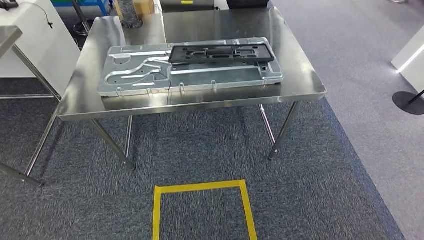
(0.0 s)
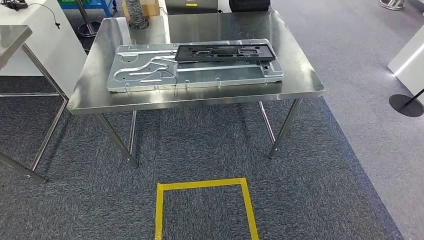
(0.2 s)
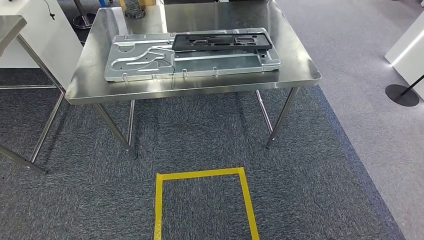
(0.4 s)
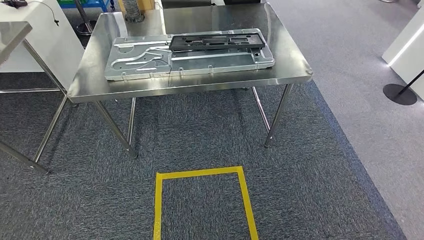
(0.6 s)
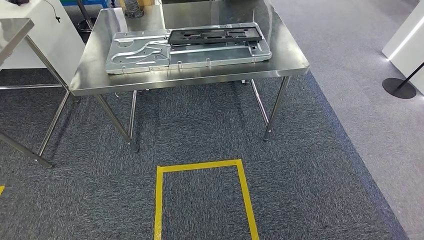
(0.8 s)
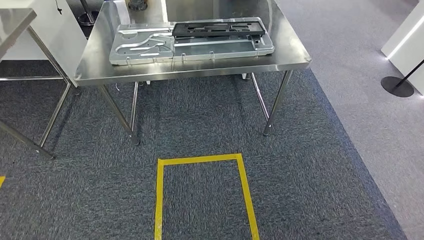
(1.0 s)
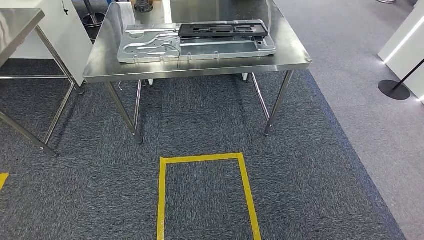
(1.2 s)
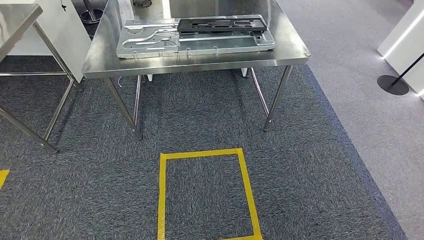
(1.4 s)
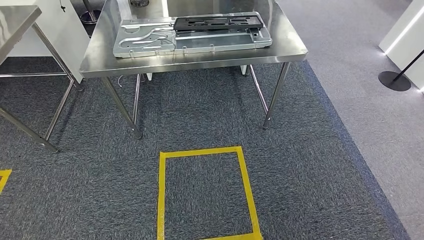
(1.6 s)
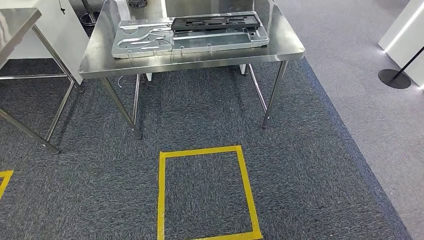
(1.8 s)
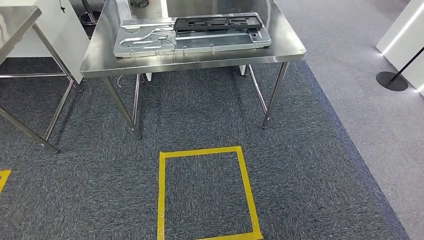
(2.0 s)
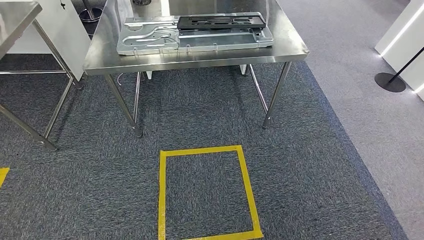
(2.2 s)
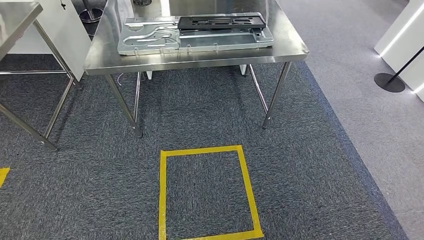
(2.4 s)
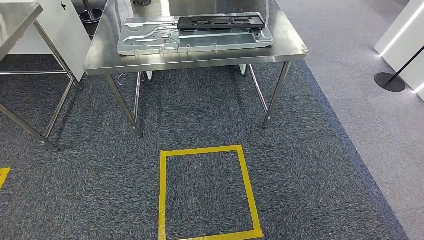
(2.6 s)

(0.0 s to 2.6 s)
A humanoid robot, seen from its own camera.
Step, 0.0 s - 2.6 s: Move to the initial position of the shelf.

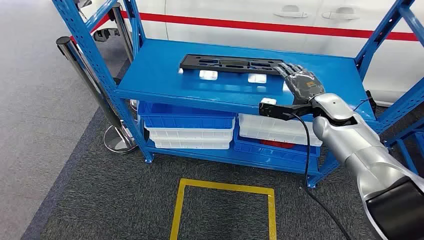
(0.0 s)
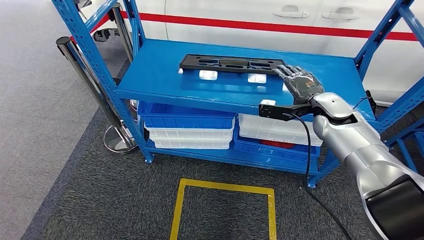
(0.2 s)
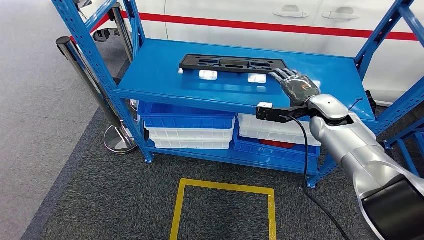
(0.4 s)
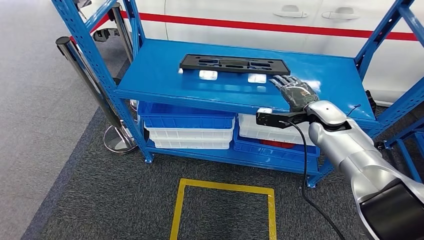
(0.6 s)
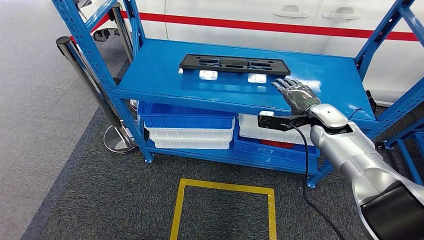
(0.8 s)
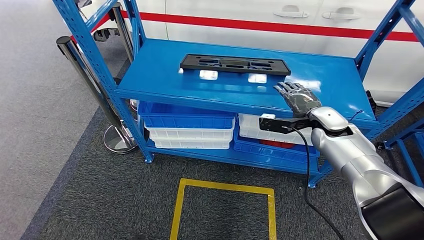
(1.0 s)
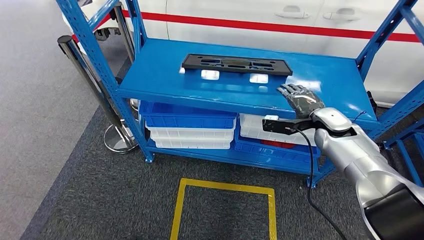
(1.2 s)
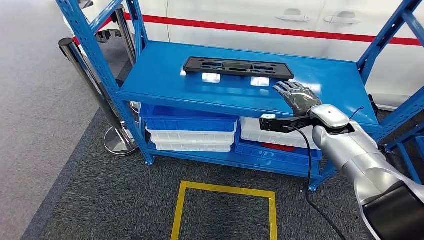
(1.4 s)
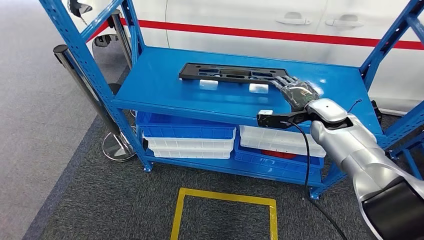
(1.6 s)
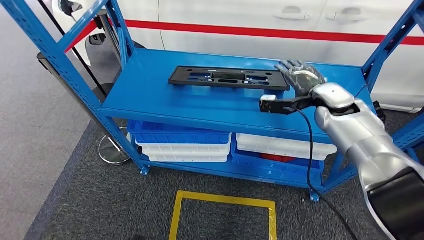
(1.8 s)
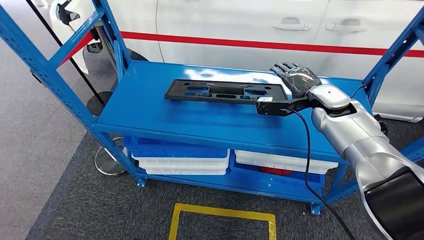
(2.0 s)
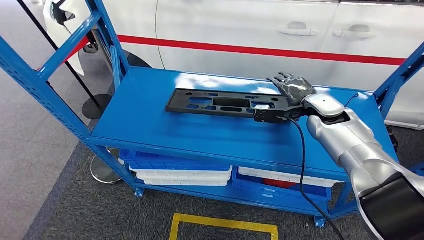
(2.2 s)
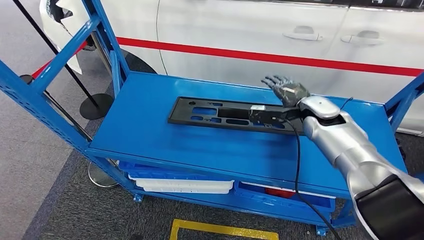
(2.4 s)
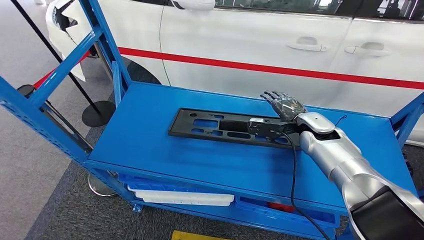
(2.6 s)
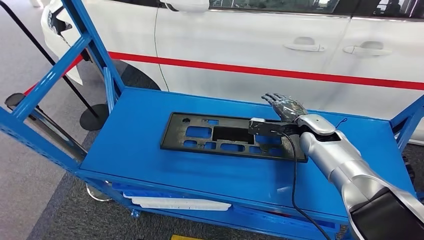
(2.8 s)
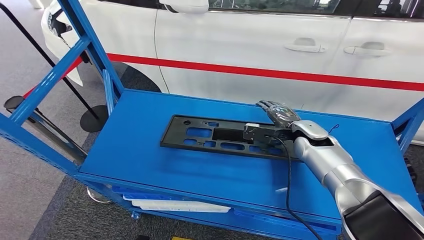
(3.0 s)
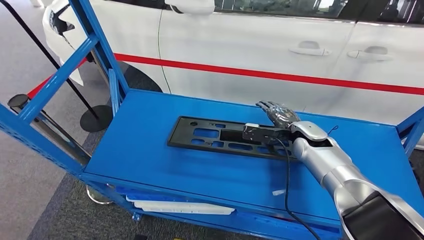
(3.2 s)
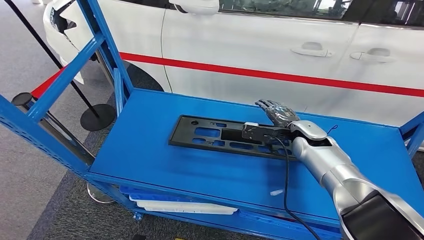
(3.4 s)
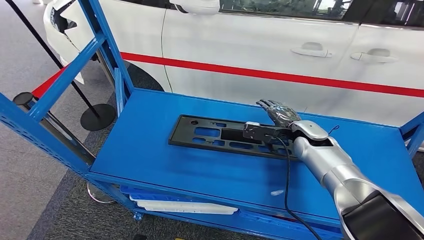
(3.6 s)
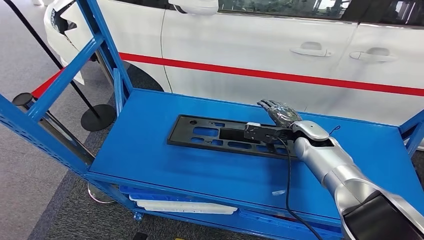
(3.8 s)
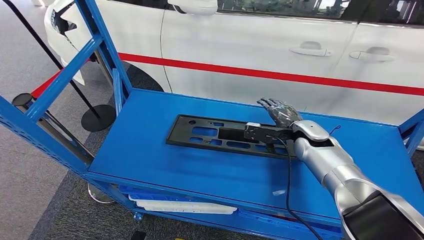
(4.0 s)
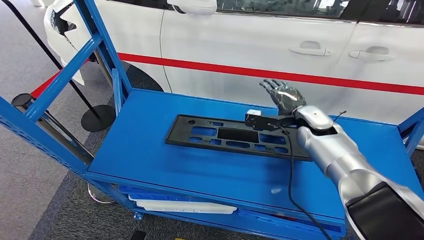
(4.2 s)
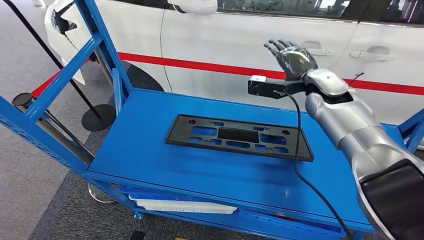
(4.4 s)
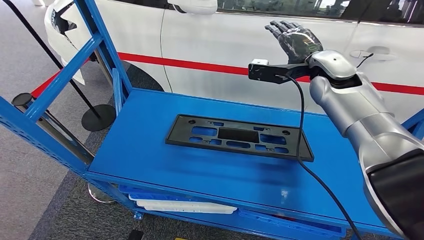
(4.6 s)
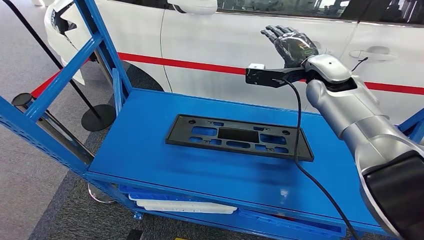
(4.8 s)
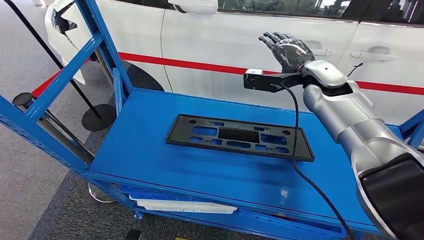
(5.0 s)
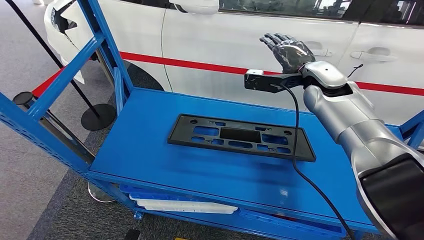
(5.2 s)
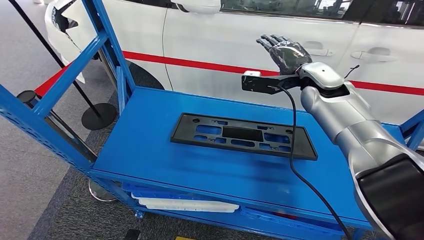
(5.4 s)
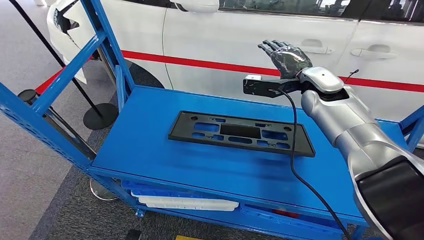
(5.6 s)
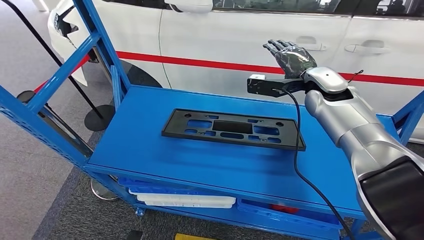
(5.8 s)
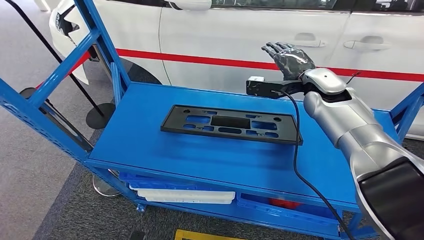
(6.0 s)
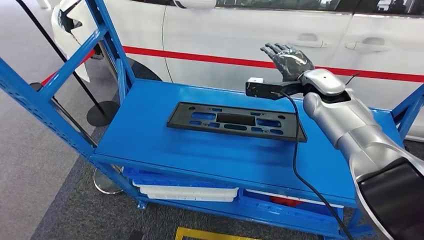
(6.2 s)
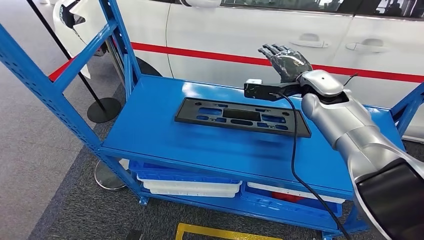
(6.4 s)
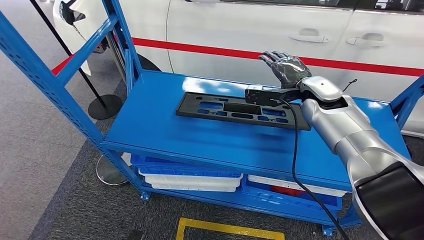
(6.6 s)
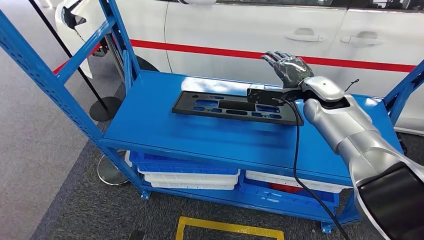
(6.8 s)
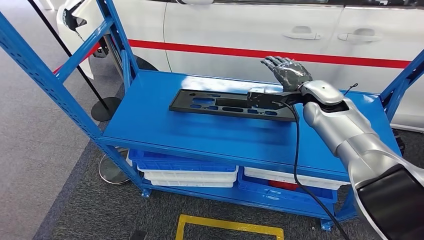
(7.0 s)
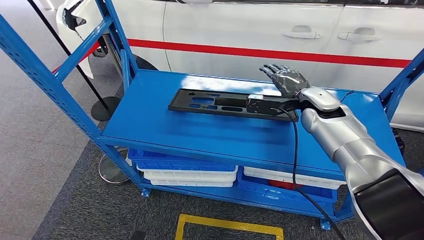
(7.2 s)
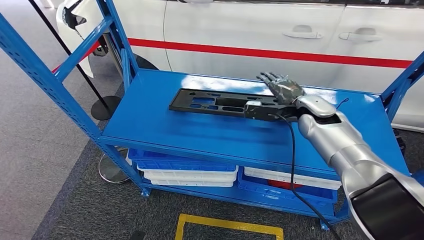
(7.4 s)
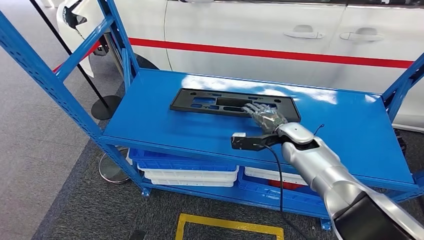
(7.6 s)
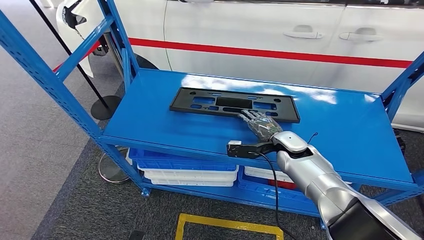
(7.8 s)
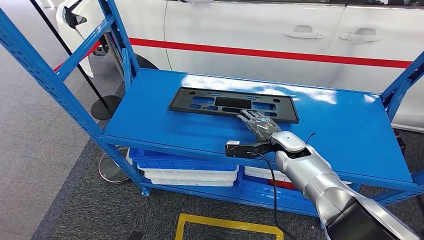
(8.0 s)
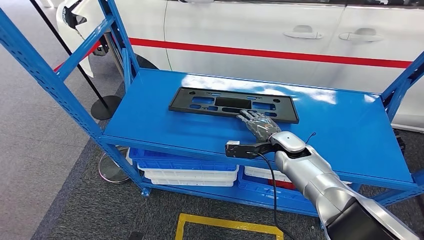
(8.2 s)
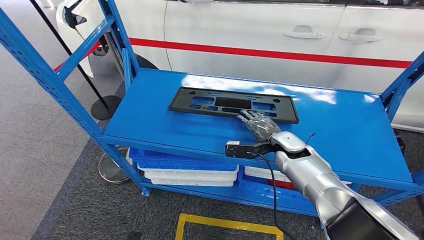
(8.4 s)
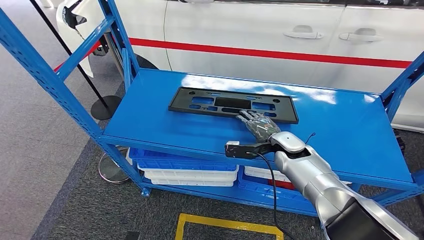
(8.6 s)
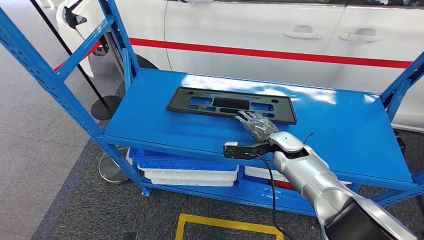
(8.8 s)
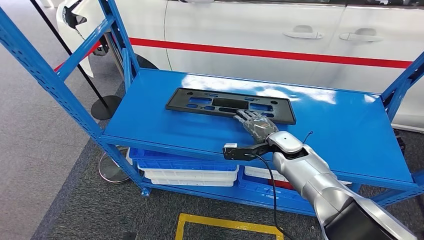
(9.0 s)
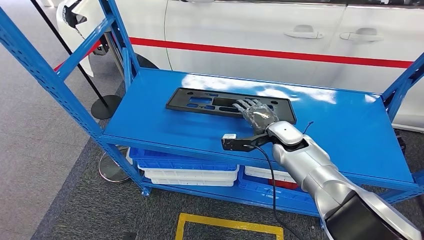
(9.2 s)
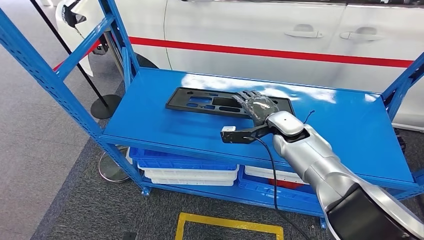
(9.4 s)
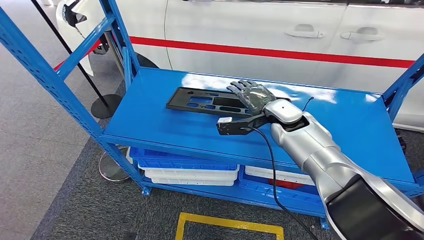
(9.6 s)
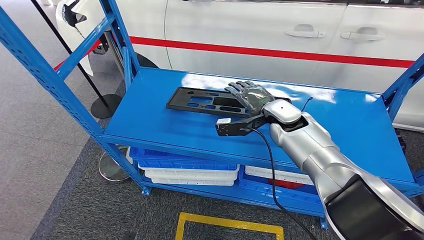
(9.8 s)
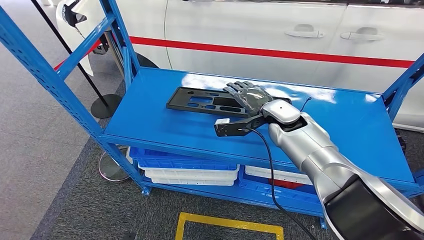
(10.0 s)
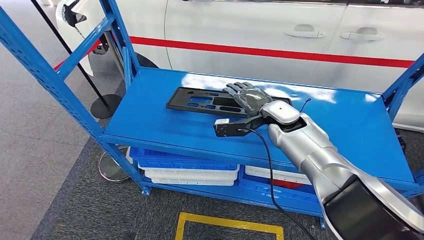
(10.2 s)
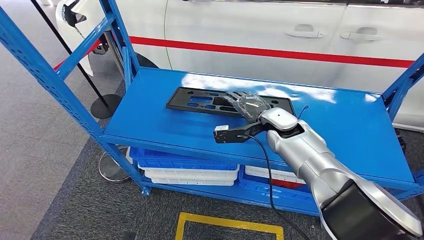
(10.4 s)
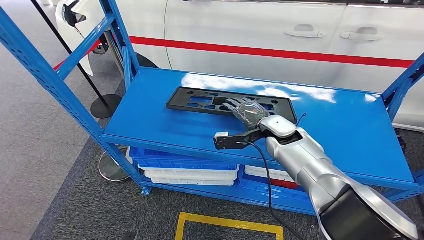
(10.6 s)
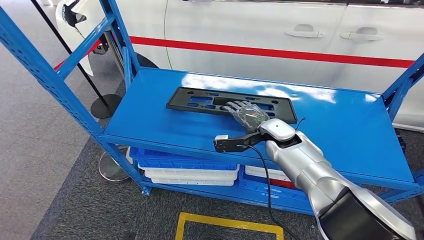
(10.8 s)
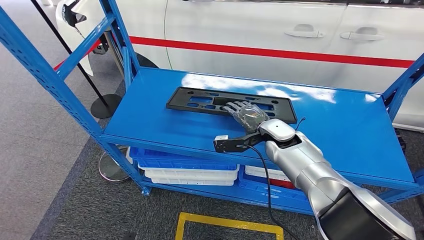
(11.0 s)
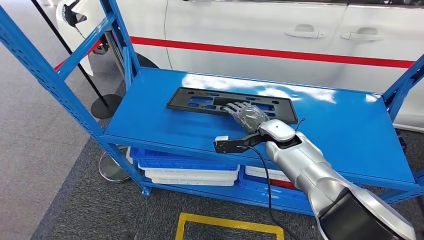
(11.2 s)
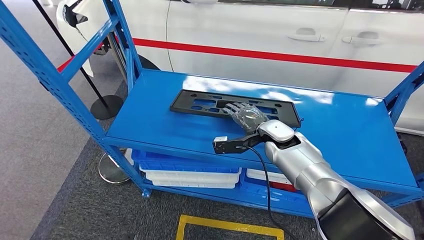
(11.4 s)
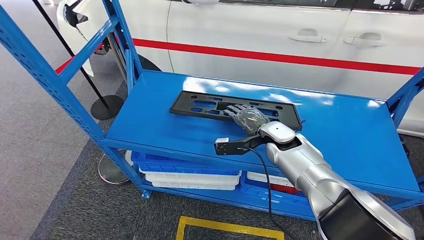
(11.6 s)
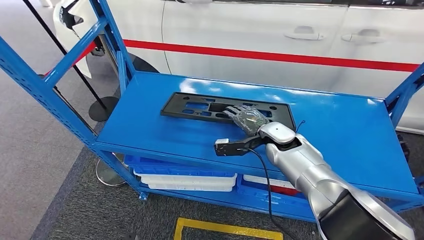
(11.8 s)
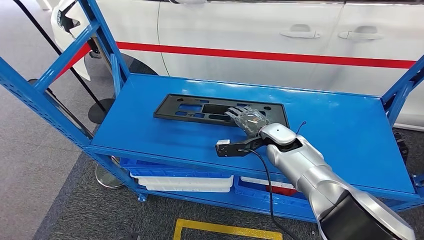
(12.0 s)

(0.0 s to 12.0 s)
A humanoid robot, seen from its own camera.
7.6 s - 9.0 s: The hands make only small movements.
9.0 s - 10.4 s: The right hand shifts roughly 5 cm upward.

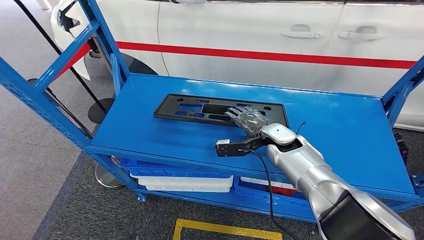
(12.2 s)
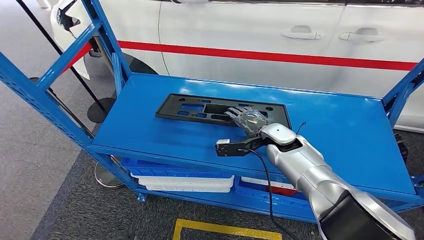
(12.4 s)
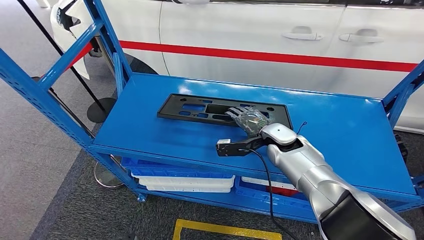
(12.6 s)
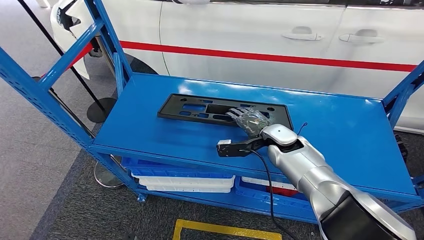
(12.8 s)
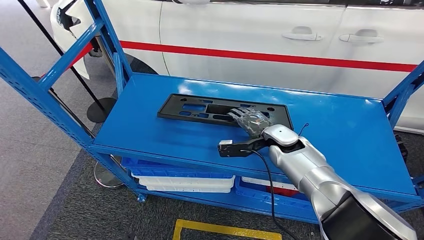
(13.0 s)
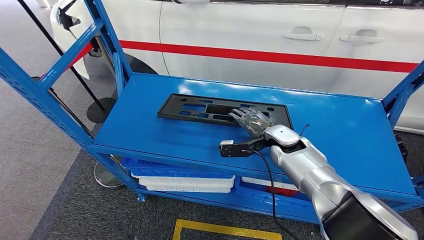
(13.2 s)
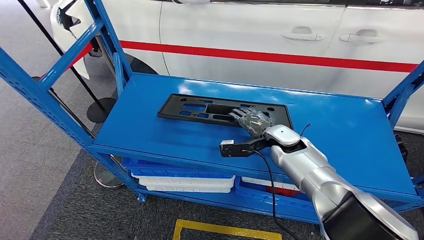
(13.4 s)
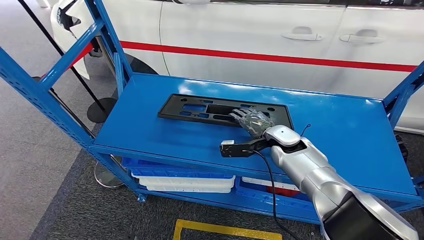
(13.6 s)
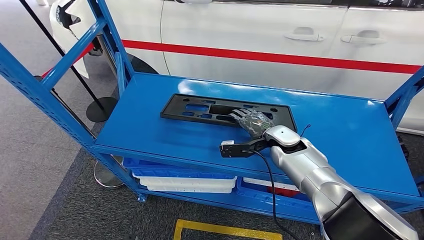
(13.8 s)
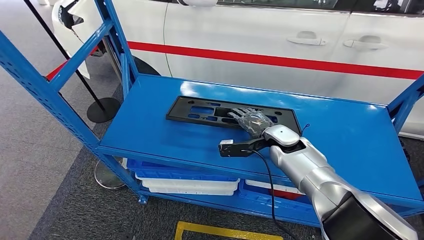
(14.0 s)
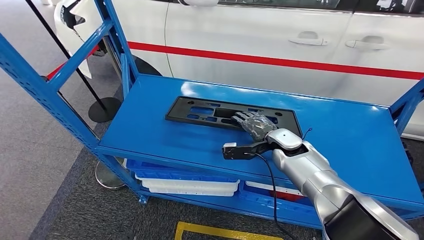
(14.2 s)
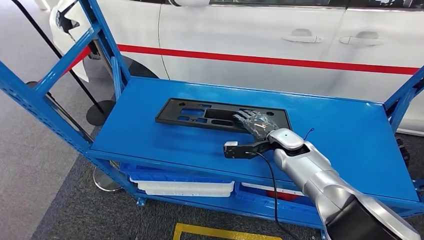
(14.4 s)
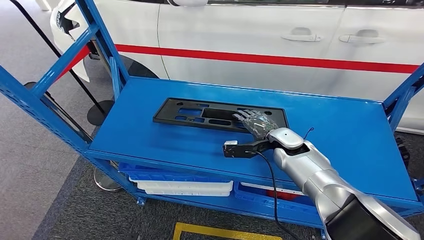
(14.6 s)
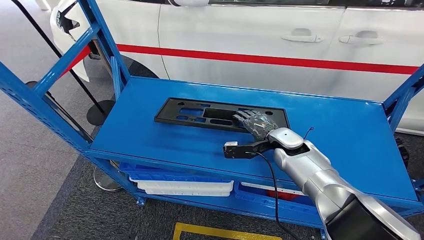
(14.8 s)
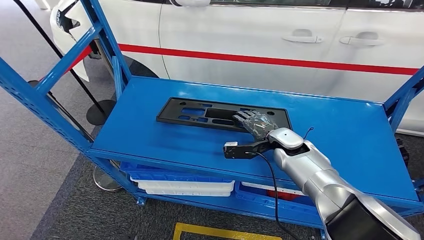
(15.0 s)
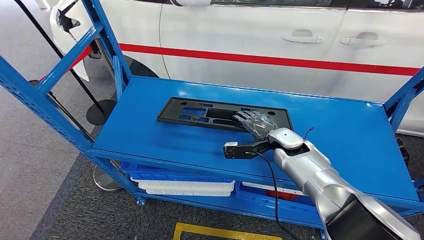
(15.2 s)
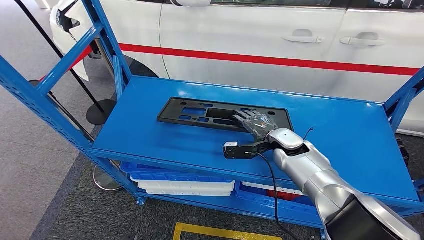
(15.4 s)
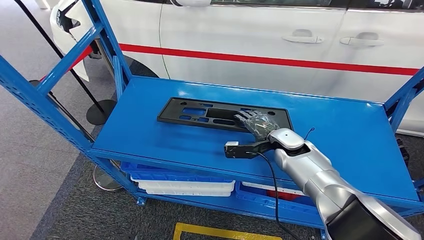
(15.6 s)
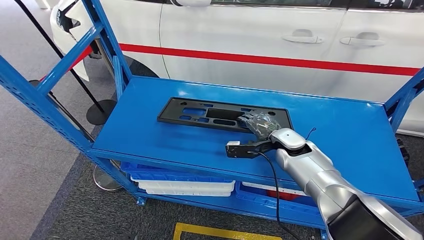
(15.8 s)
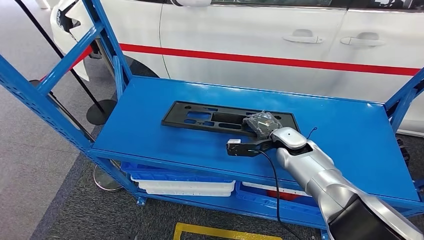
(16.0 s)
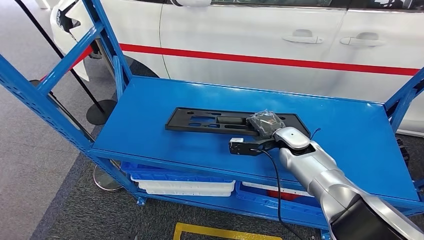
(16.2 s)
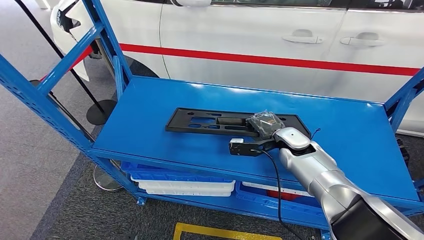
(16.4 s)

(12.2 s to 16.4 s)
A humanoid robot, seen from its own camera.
12.2 s - 13.6 s: Neither hand changes place.
13.6 s - 15.0 s: Both hands stay about where they are.
15.0 s - 16.4 s: The hands make only small movements.
